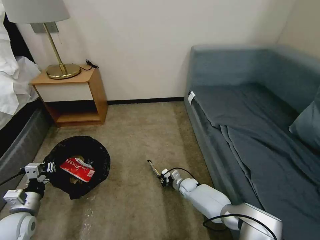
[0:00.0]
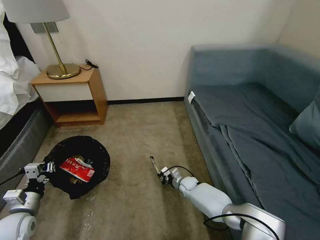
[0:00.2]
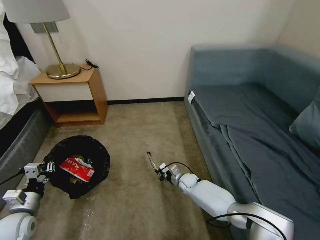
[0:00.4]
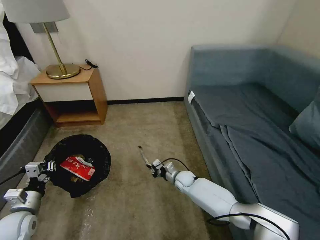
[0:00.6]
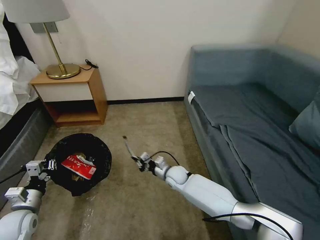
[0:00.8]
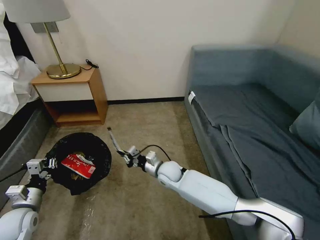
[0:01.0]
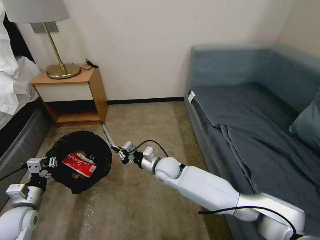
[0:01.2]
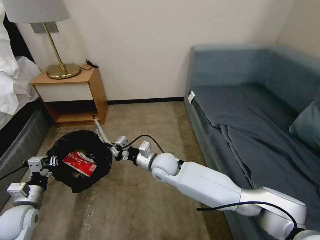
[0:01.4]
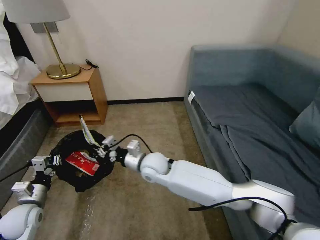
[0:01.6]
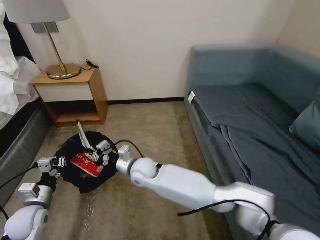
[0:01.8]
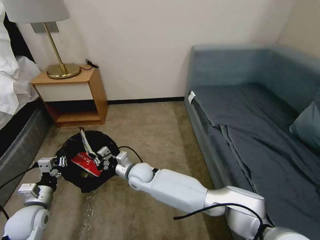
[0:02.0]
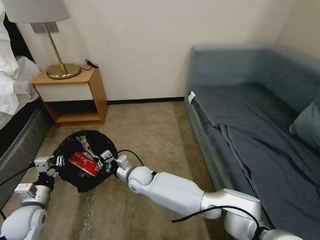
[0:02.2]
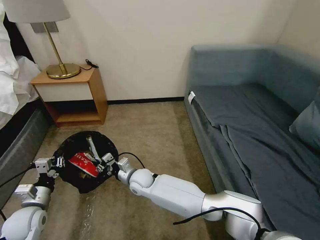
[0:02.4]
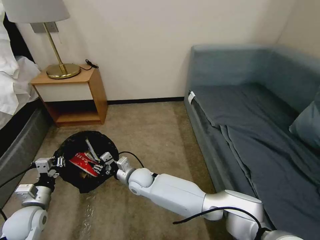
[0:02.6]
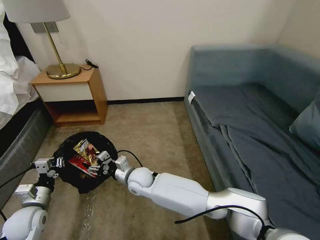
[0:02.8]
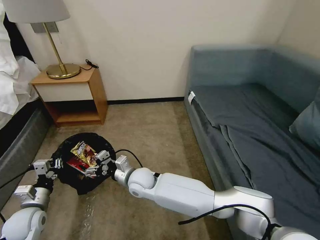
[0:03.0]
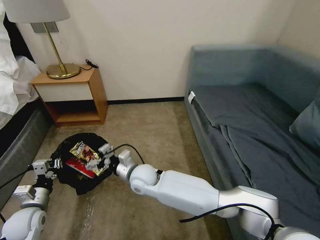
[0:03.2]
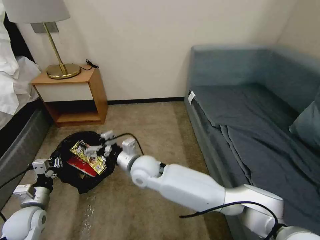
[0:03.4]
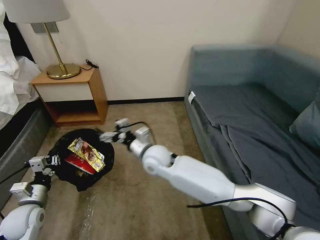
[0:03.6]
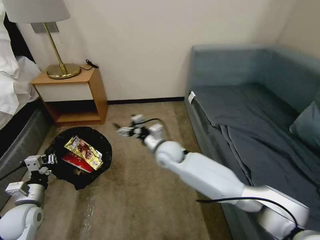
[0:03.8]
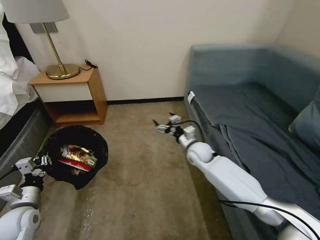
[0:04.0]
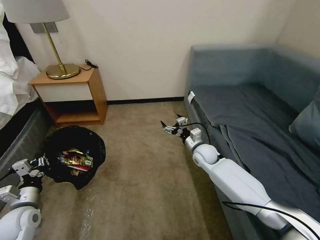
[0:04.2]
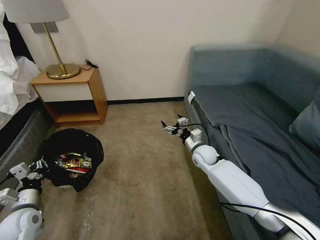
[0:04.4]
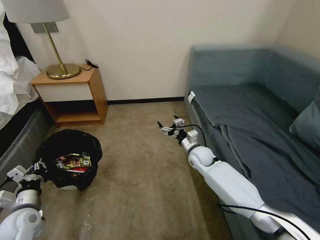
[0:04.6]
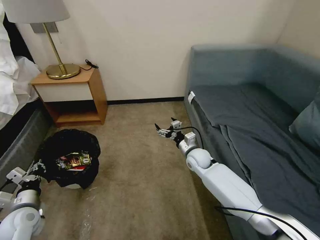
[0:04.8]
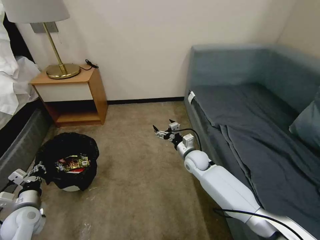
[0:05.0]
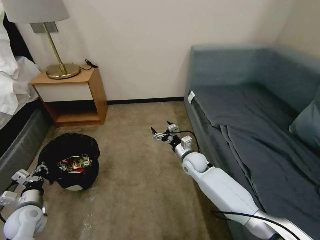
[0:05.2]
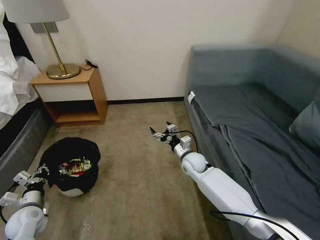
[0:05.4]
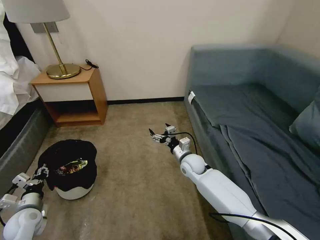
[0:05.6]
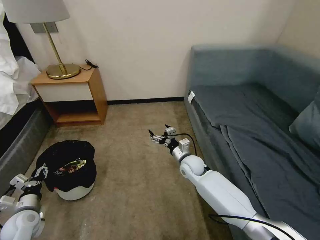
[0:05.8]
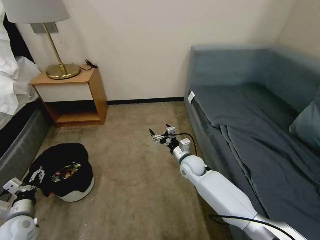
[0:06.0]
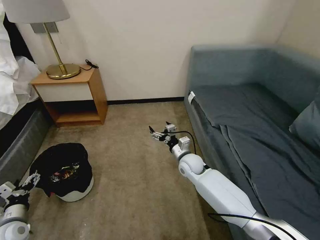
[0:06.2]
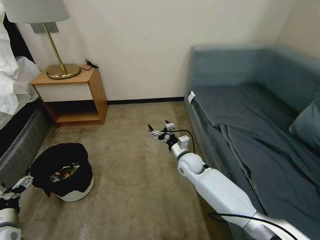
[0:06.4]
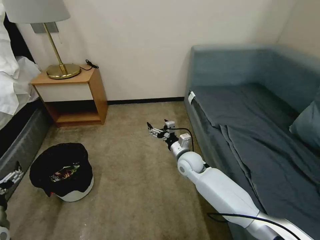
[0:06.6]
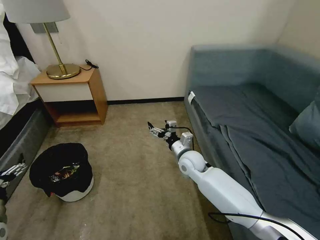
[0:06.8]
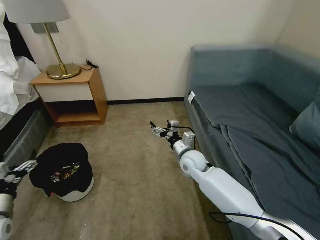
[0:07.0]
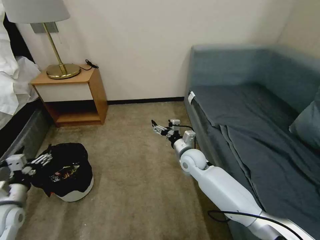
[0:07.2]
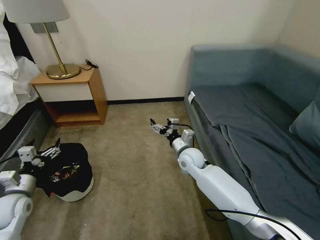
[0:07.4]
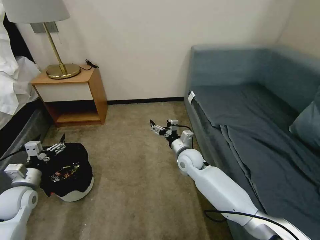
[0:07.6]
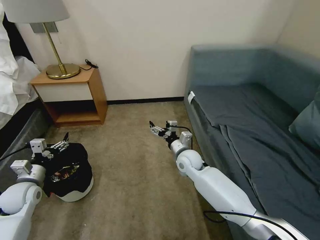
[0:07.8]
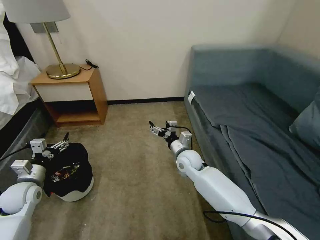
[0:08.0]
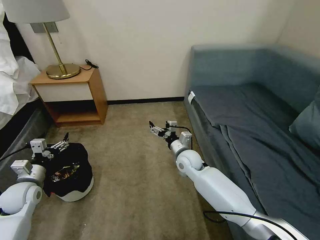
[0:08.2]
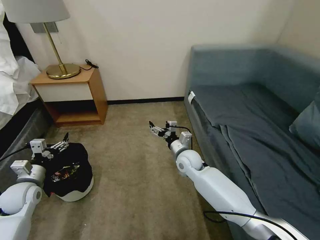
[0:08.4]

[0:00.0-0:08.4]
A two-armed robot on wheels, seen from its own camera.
Task of the whole recording: Pick up the trash bin, then pick up the garbage on the floor and place it into the trash bin.
0:00.0 to 0:01.4: The right gripper shifts roughly 30 cm upward and to the left.
0:01.4 to 0:02.8: The right gripper goes about 10 cm to the left and downward, and opens.
0:02.8 to 0:04.2: The right gripper travels to the right by about 25 cm.
0:04.2 to 0:05.6: The left gripper shifts approximately 5 cm downward, and opens its fingers, while the right gripper heads to the left, covering roughly 5 cm.
0:05.6 to 0:07.0: The left gripper travels upward by approximately 10 cm, and opens its fingers, while the right gripper ends up about 5 cm from where it was.
0:07.0 to 0:08.4: The left gripper heads forward, covering approximately 10 cm.
